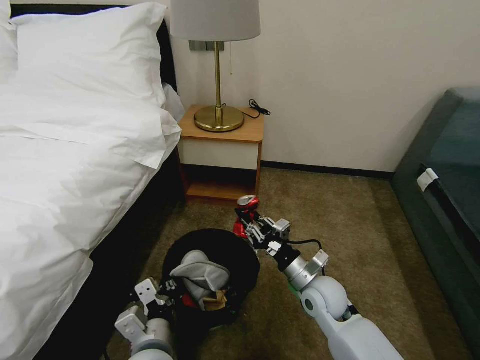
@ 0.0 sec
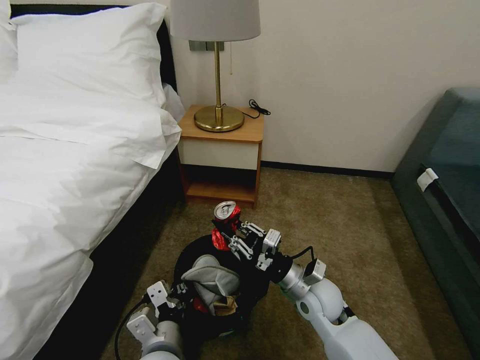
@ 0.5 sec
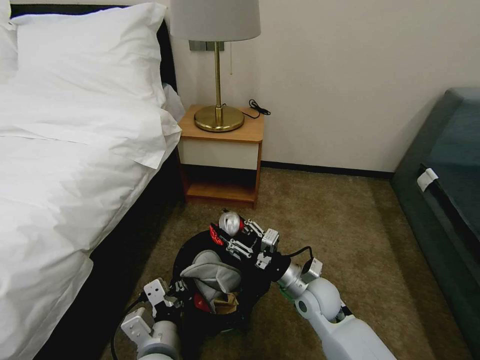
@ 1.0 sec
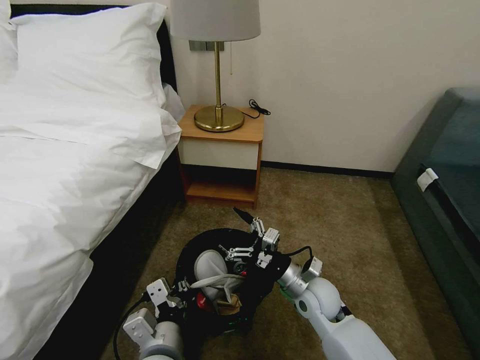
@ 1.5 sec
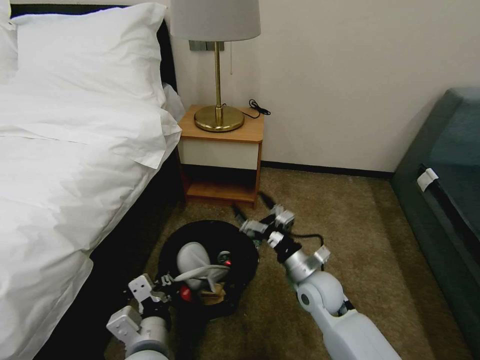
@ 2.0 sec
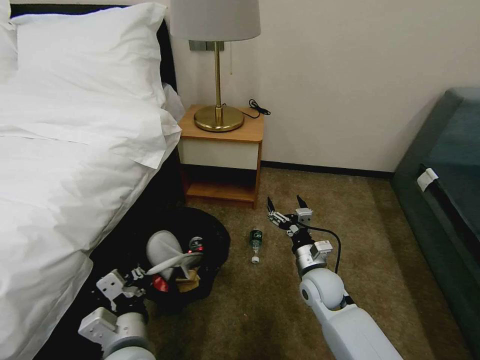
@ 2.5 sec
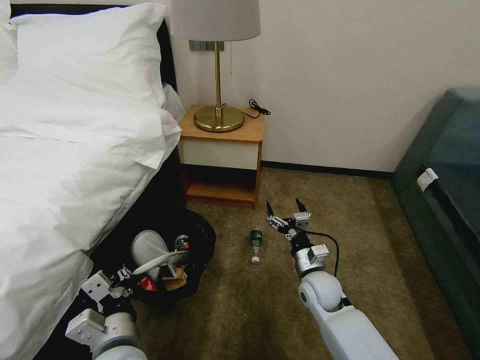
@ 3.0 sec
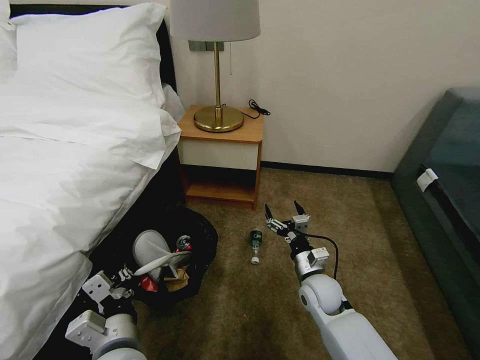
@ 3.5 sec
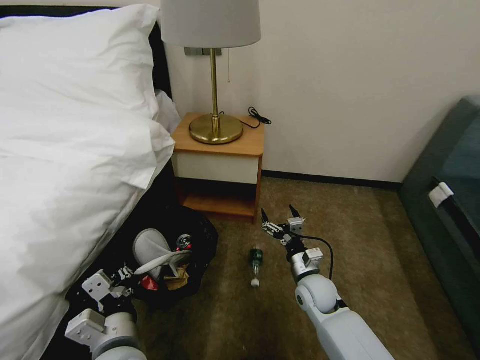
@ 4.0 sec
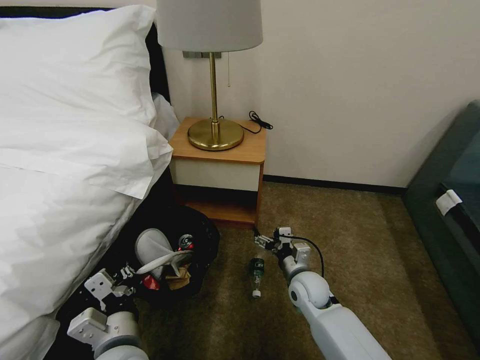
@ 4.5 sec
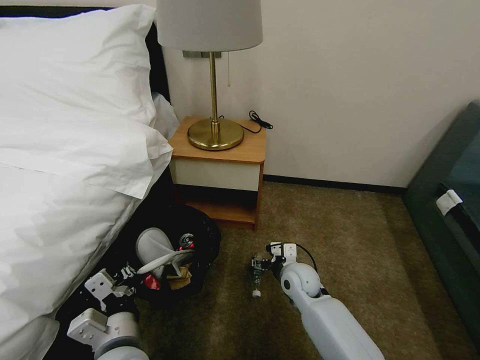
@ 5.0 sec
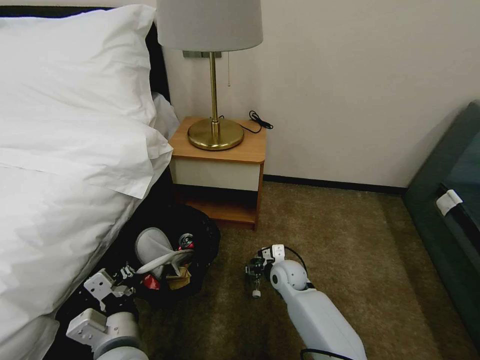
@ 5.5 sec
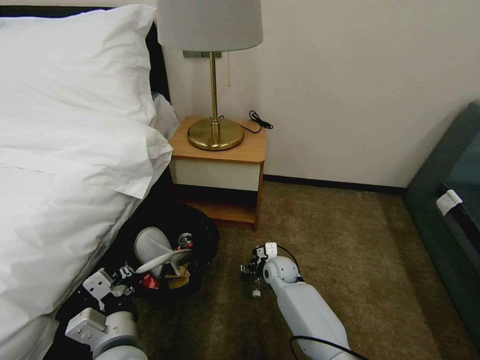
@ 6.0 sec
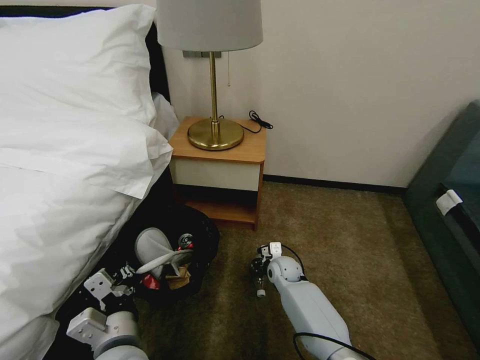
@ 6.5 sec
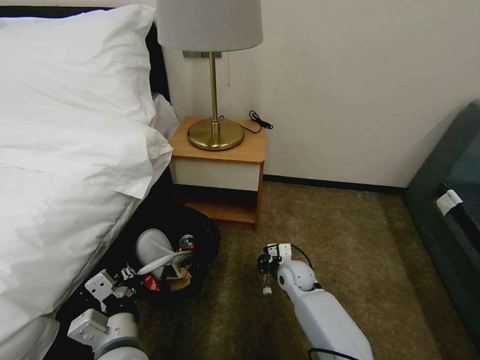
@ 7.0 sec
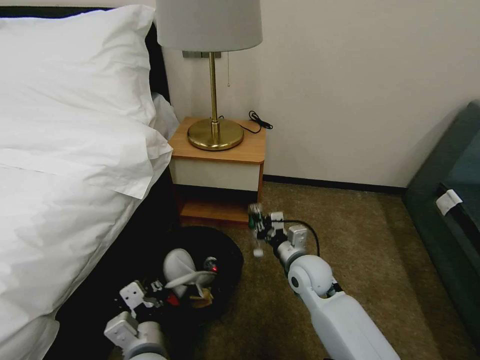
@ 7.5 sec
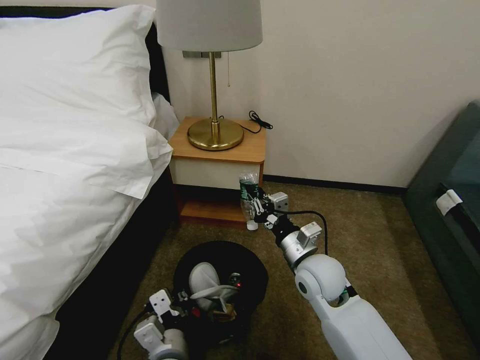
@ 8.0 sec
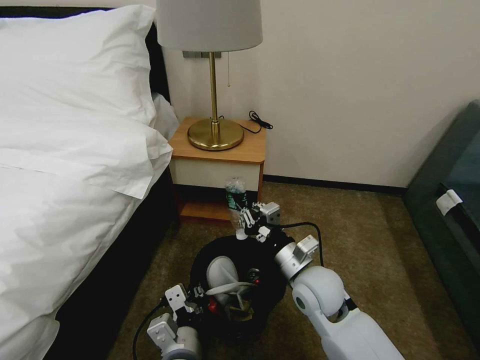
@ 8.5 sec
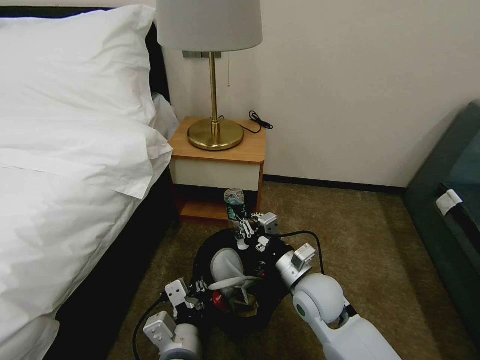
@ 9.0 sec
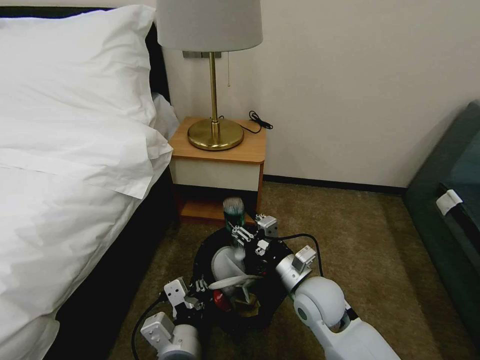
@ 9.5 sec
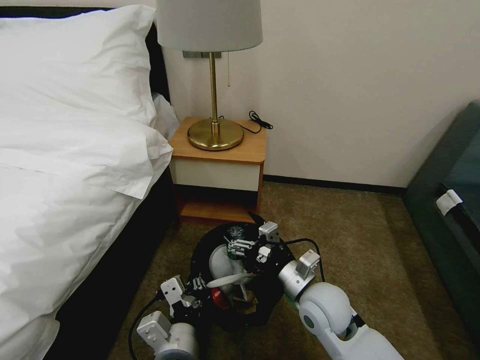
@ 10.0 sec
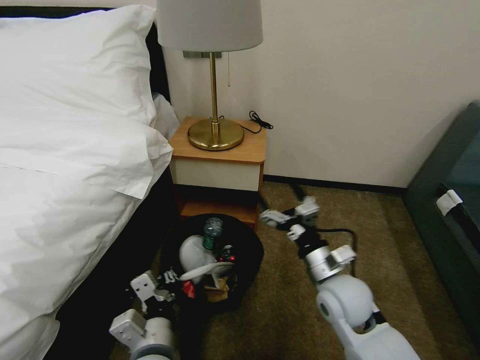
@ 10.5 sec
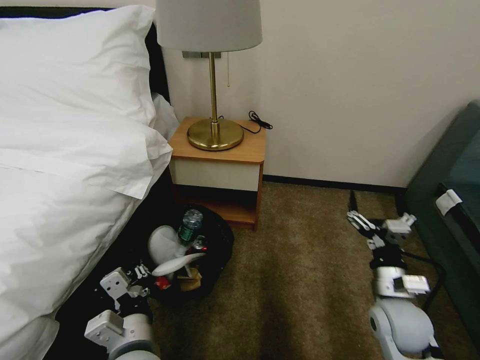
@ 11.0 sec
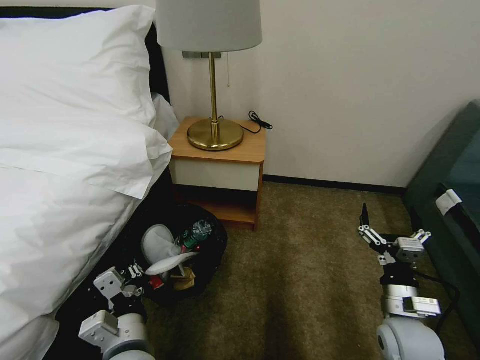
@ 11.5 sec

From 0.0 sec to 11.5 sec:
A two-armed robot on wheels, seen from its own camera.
Task of the whole recording: Pick up the trash bin, then pick up the garbage on the floor and place it into the trash bin.
From 0.0 sec to 2.0 sec: The right gripper opens up.
From 2.0 sec to 4.0 sec: The right gripper moves downward, about 5 cm.
From 4.0 sec to 6.0 sec: The right gripper heads forward, to the left and downward, covering approximately 10 cm.
From 6.0 sec to 7.5 sec: The right gripper moves upward and backward, about 15 cm, and closes its fingers.
From 7.5 sec to 9.5 sec: The left gripper heads to the right, covering about 5 cm. The right gripper goes roughly 5 cm backward, and opens up.
From 9.5 sec to 11.5 sec: The right gripper shifts approximately 15 cm to the right, and opens. Meanwhile the left gripper heads to the left, covering about 5 cm.
